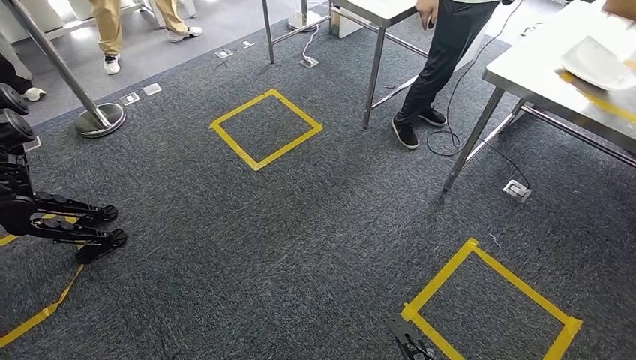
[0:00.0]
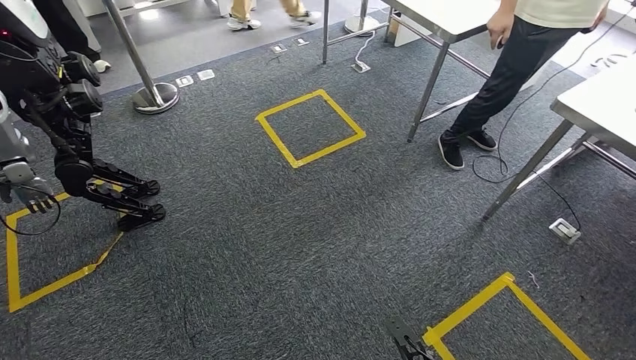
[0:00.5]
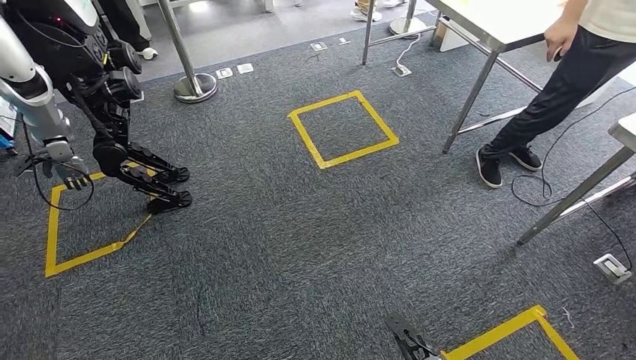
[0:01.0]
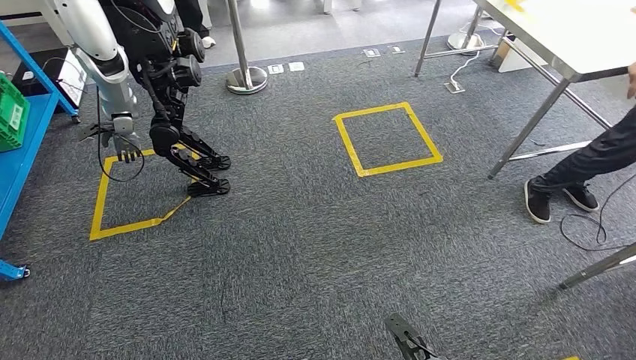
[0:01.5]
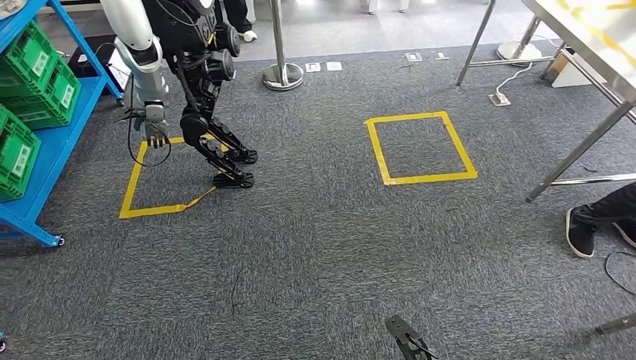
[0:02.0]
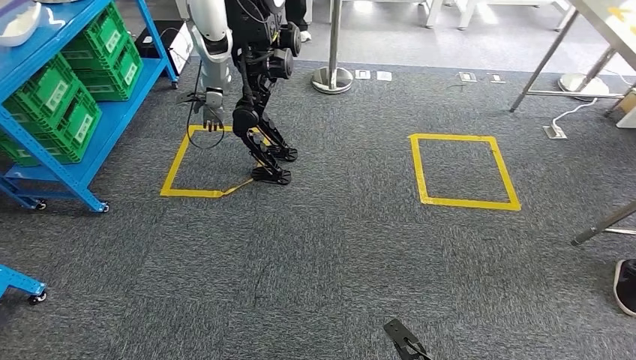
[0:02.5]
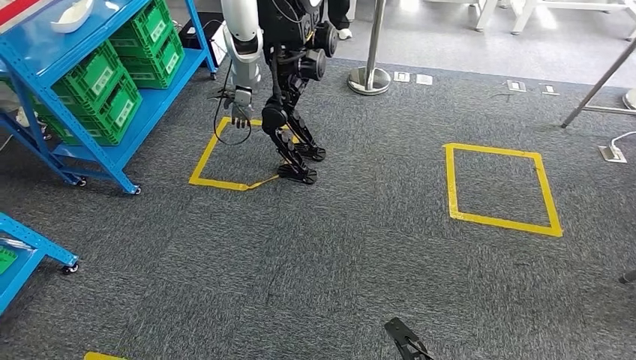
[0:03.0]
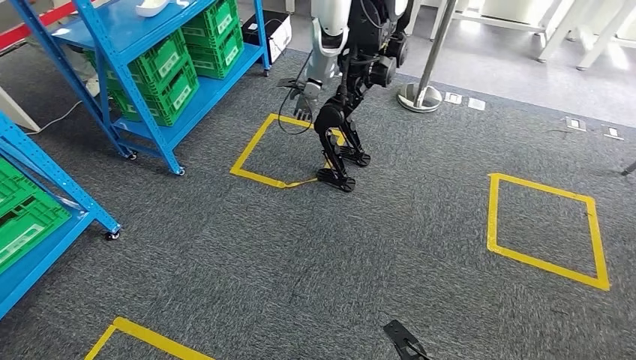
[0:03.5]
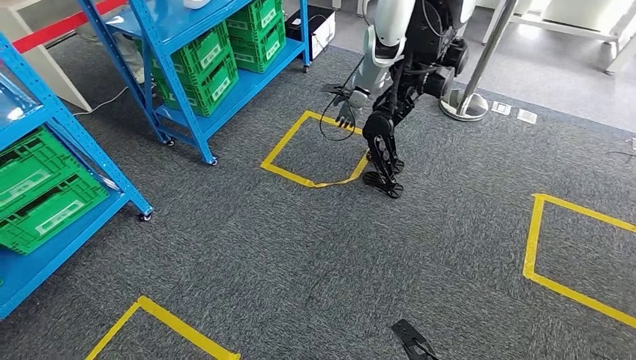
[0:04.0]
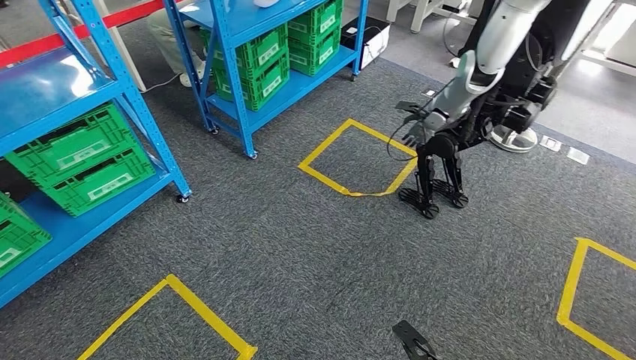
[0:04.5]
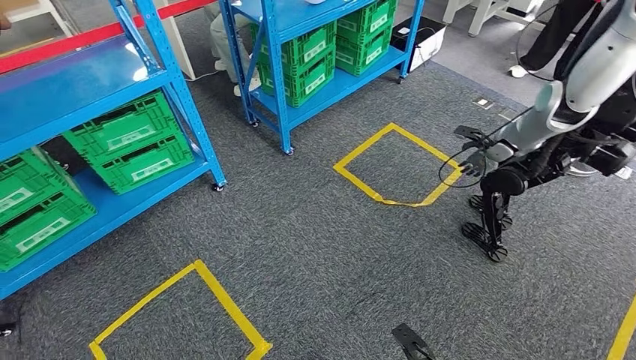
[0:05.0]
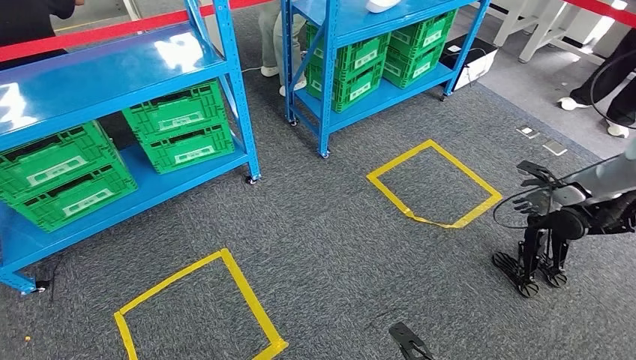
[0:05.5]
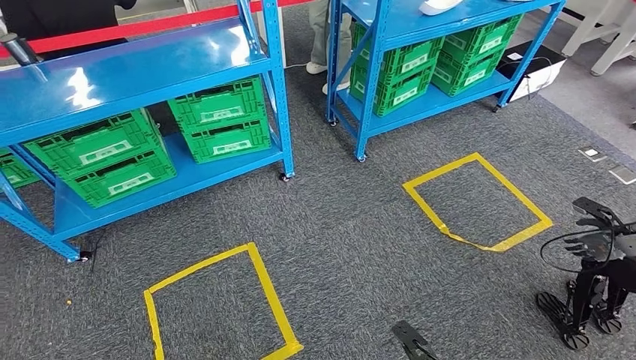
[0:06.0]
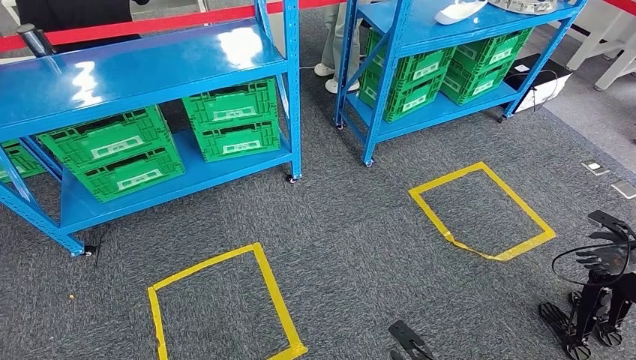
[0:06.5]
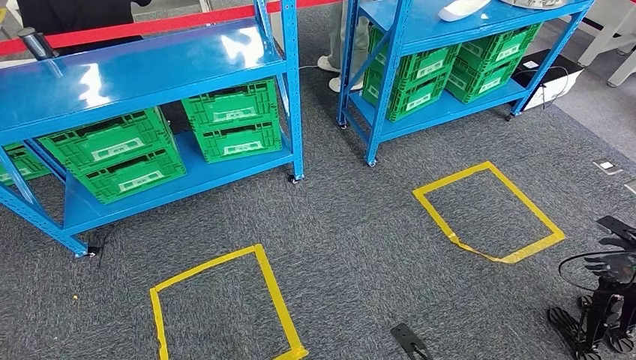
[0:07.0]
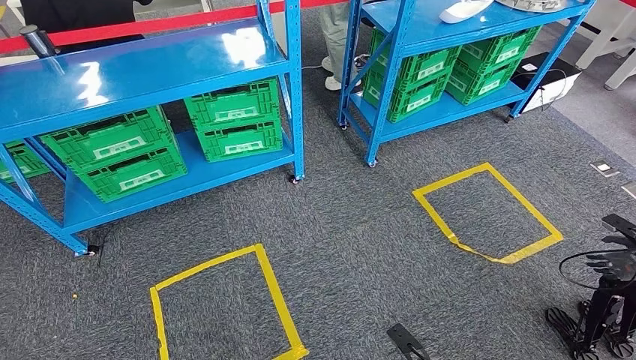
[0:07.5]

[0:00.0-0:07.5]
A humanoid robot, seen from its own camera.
Step, 0:00.0 to 0:07.5: Move to the initial position of the workbench.

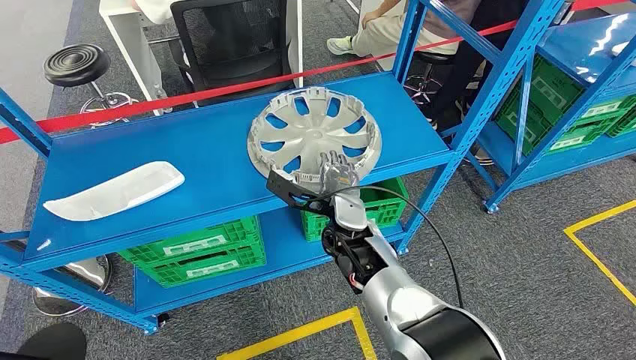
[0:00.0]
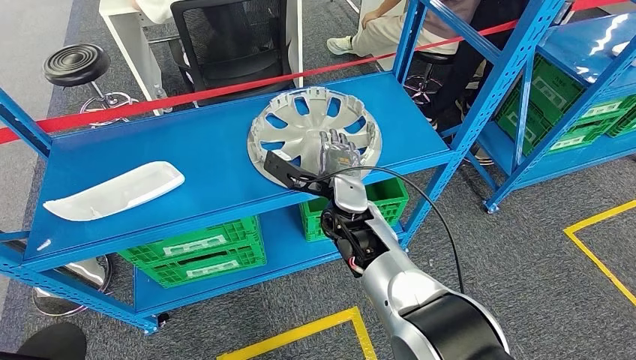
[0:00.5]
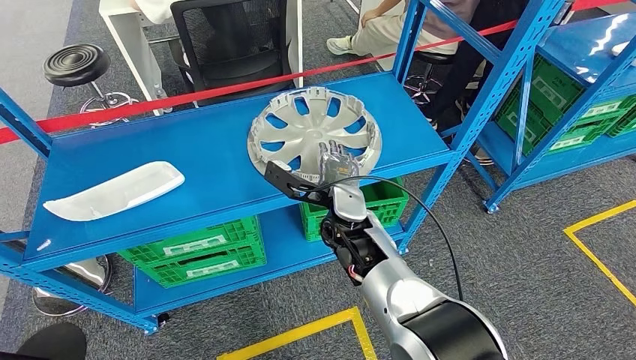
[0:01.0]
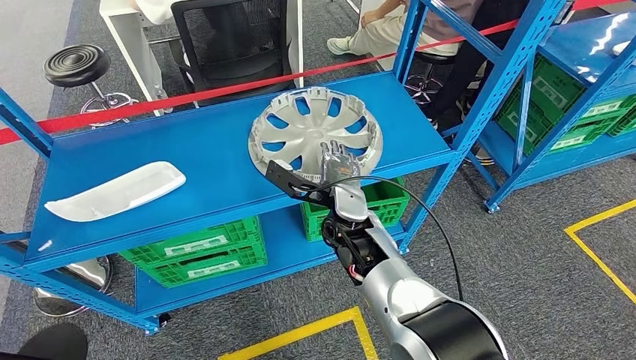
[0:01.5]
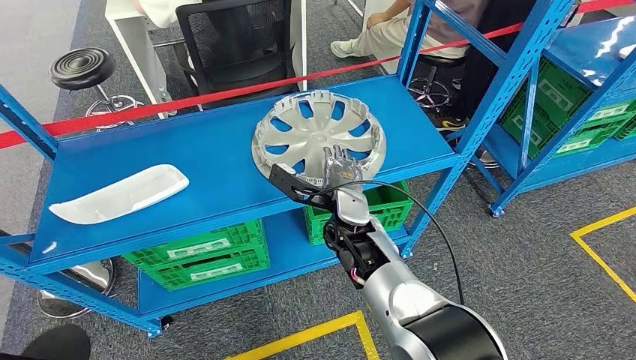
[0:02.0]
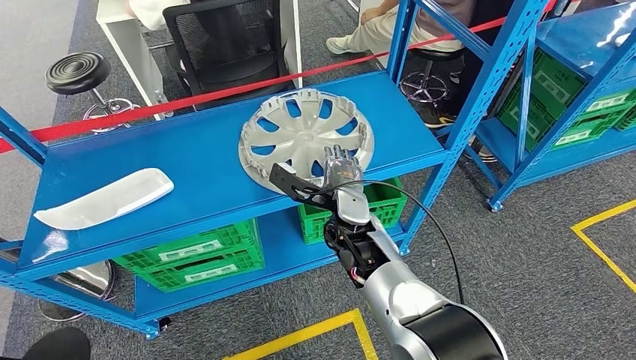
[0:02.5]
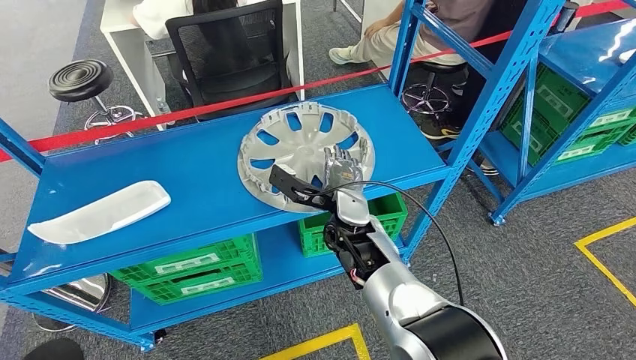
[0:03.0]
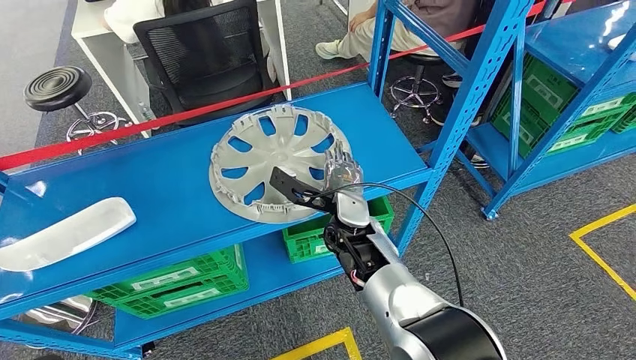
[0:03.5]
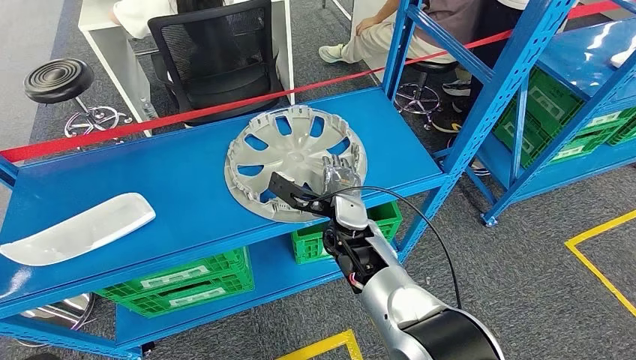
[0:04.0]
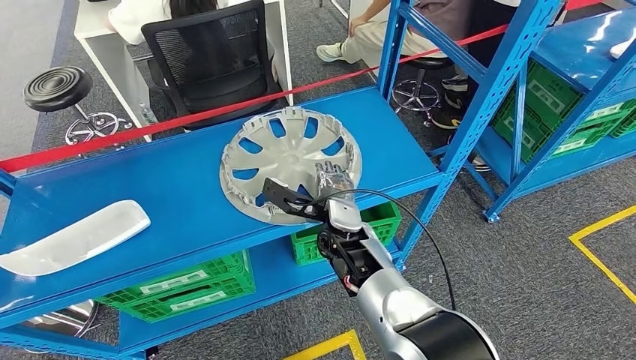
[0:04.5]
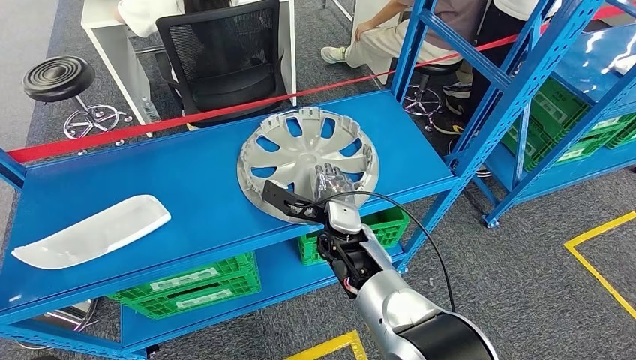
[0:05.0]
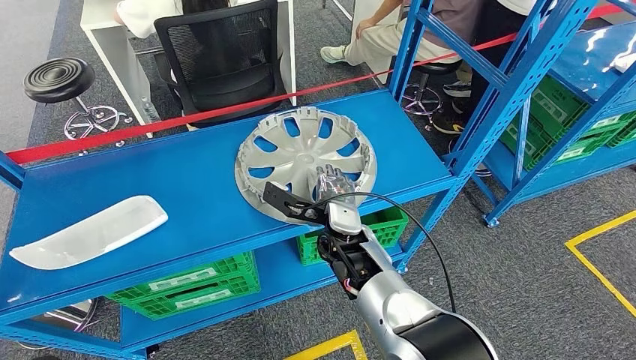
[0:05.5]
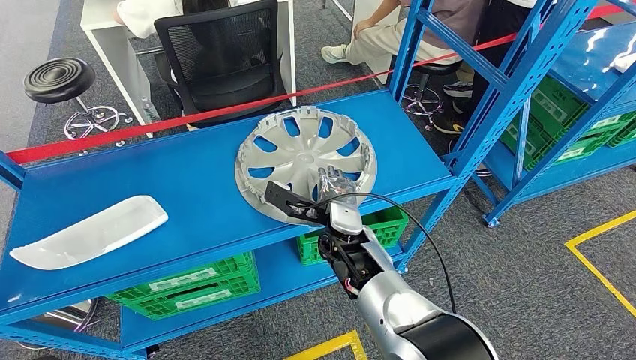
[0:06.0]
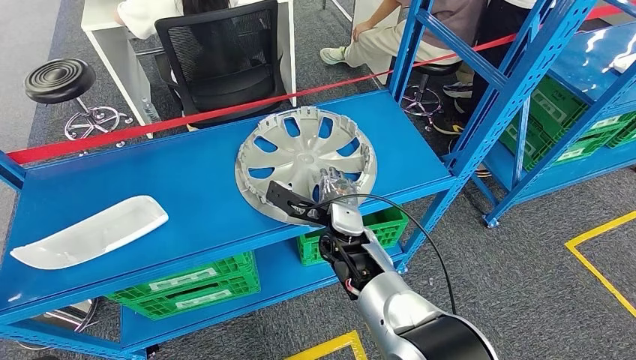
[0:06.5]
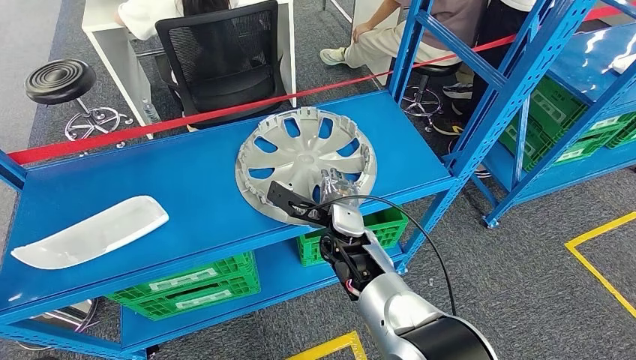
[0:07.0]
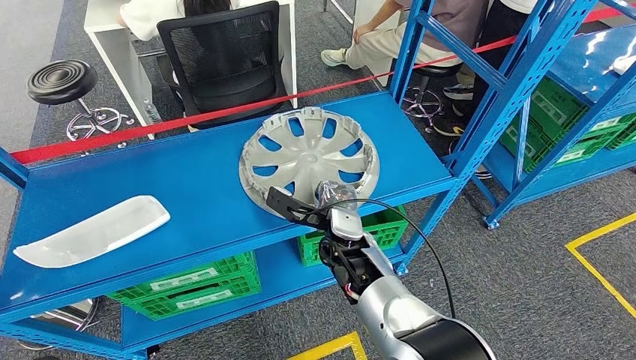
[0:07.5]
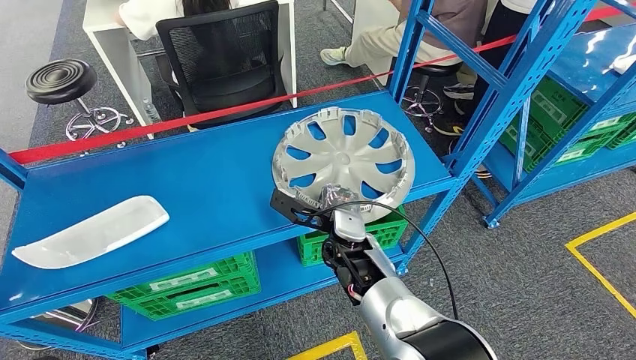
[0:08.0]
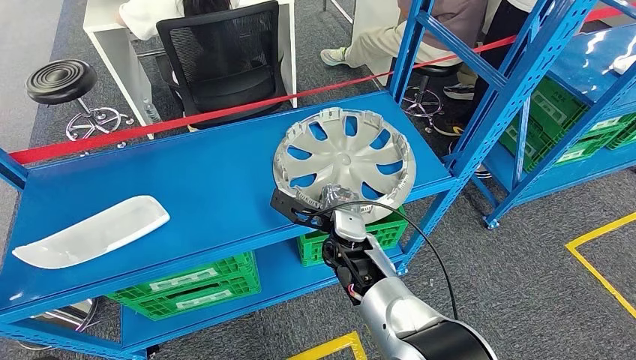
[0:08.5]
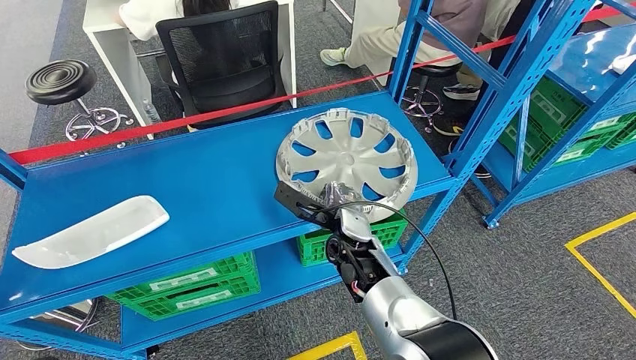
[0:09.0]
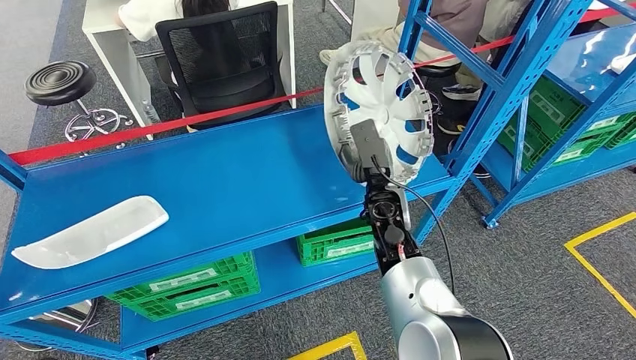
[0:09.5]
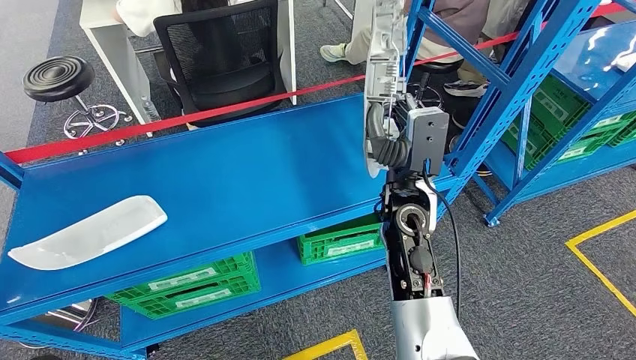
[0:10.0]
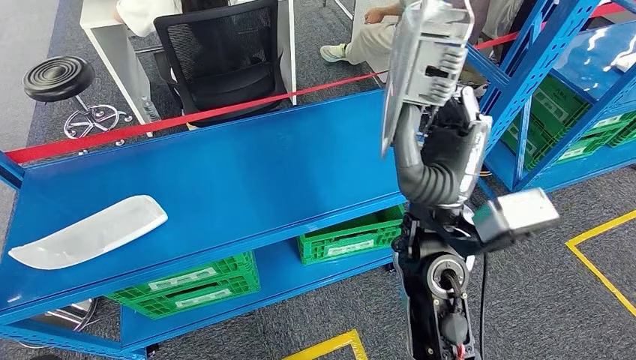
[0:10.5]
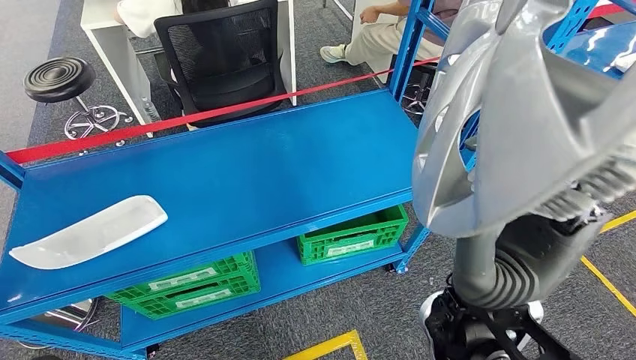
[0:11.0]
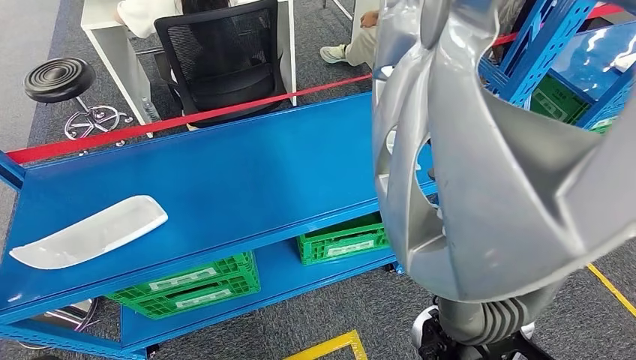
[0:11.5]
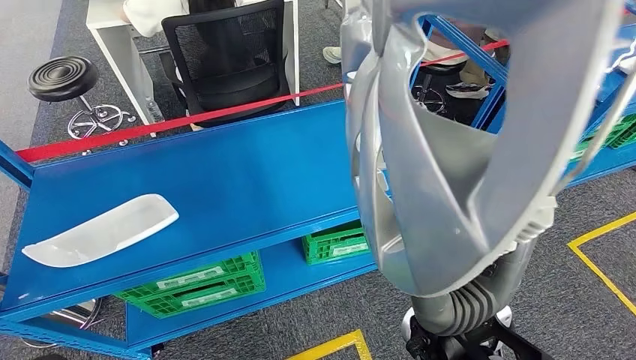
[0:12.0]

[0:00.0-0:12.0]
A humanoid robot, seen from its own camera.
Step, 0:00.0 to 0:10.0: Take small components from the rack.
0:06.0 to 0:08.0: The hands move only a little.

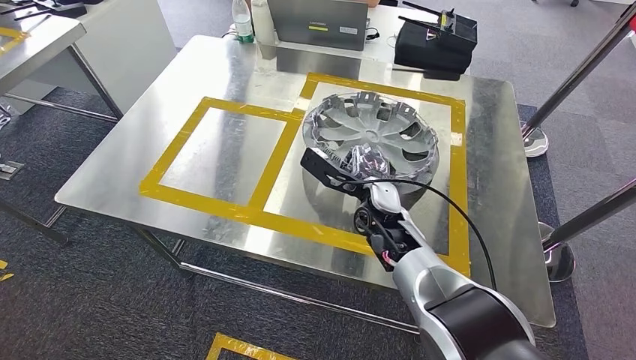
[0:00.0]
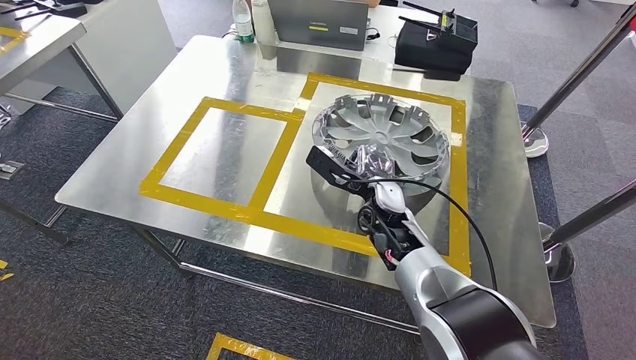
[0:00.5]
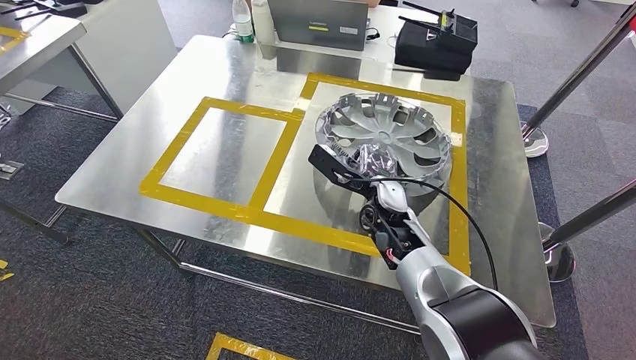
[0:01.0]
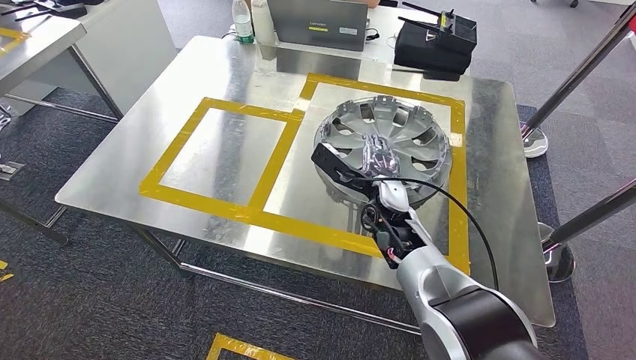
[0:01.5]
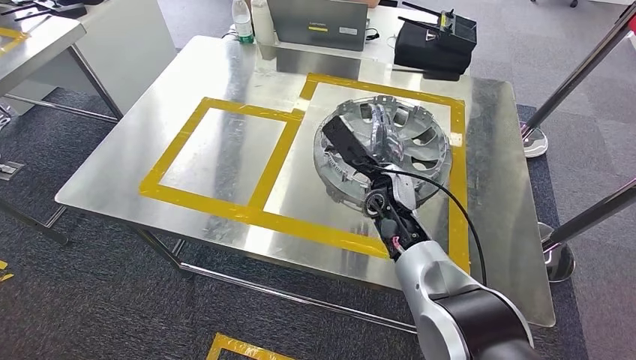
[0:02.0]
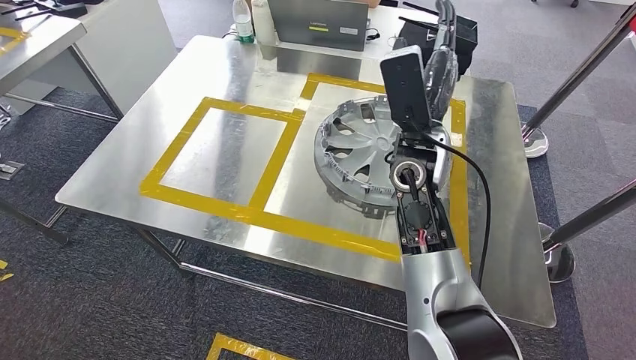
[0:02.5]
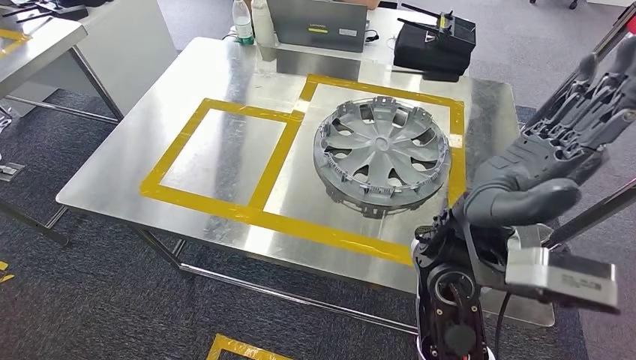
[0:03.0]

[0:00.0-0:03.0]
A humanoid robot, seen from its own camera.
0:00.0 to 0:01.5: Both hands stay put.
0:01.5 to 0:03.0: The right hand moves upward and backward, some 20 cm.
